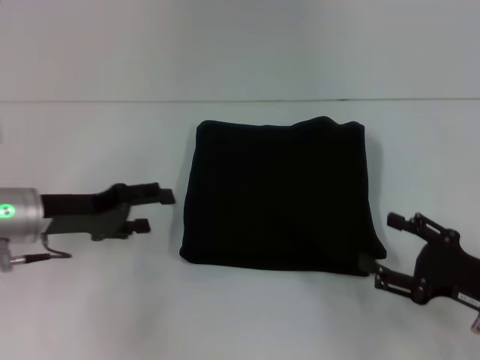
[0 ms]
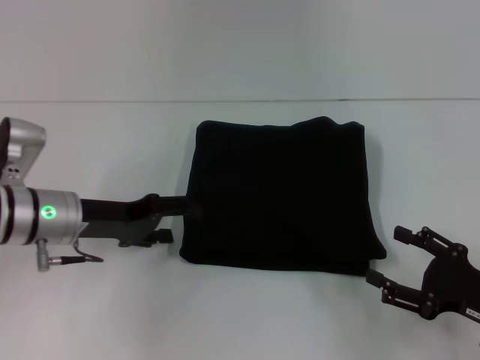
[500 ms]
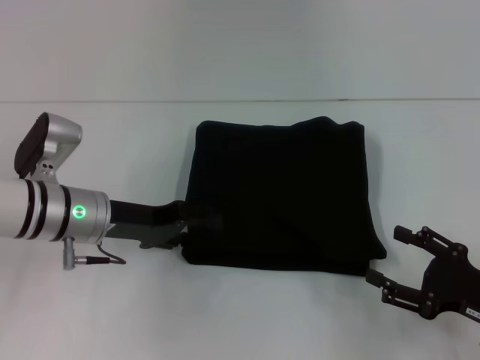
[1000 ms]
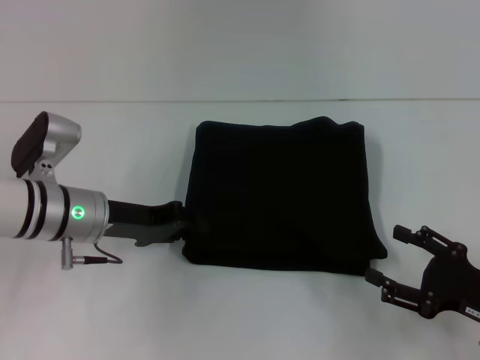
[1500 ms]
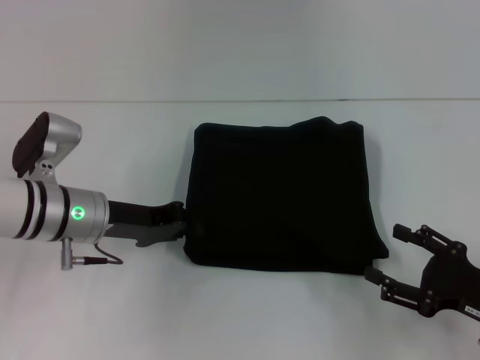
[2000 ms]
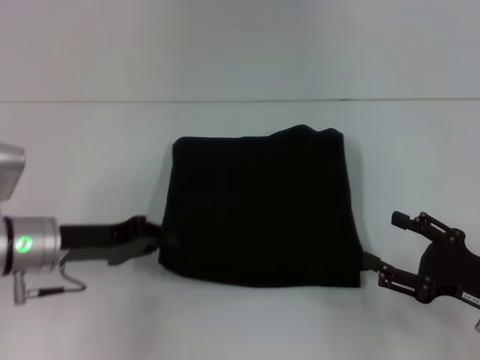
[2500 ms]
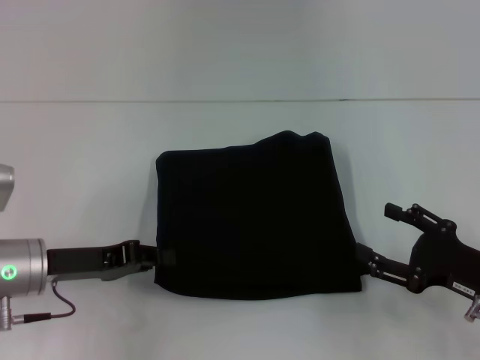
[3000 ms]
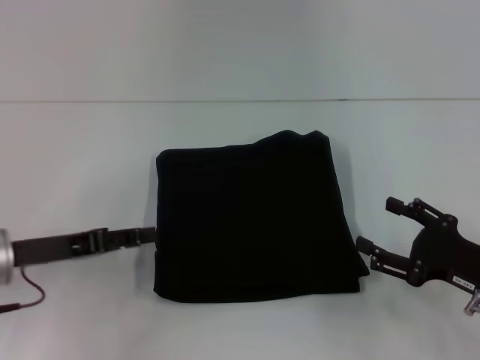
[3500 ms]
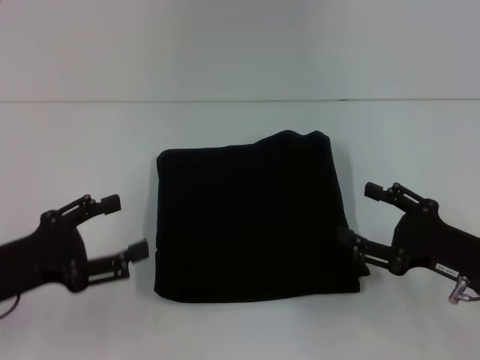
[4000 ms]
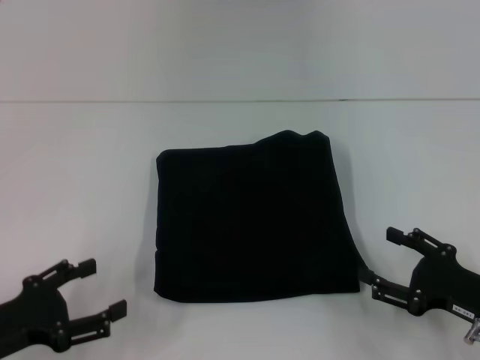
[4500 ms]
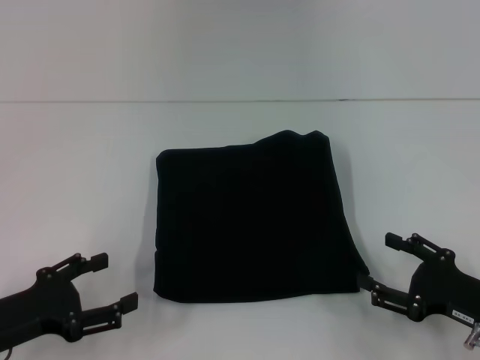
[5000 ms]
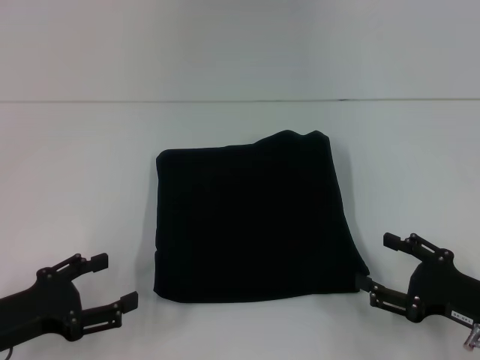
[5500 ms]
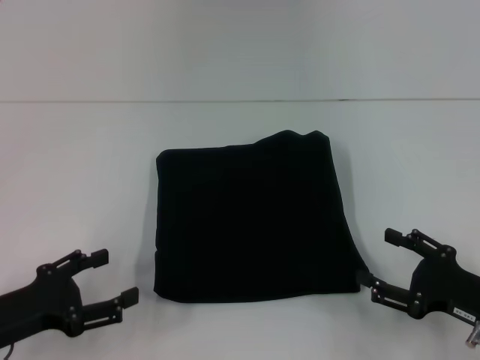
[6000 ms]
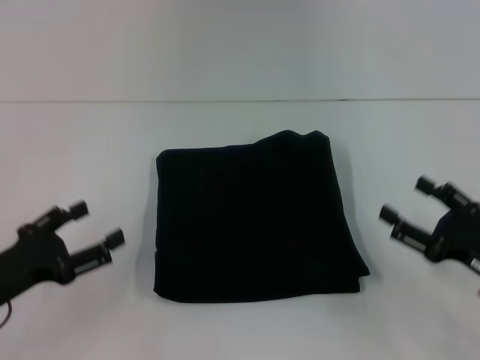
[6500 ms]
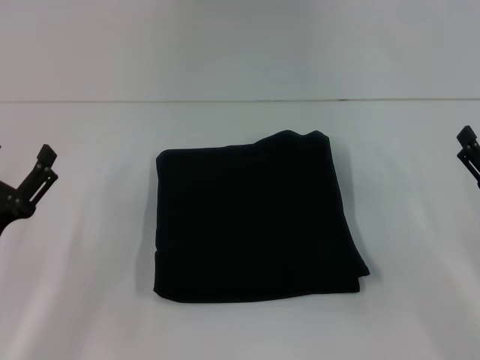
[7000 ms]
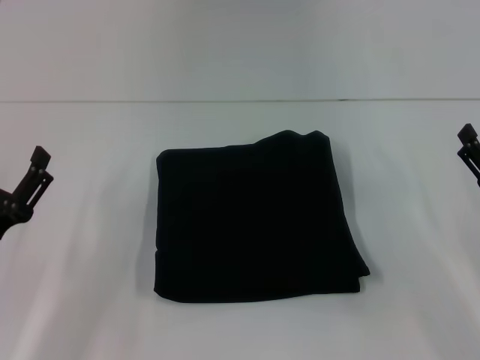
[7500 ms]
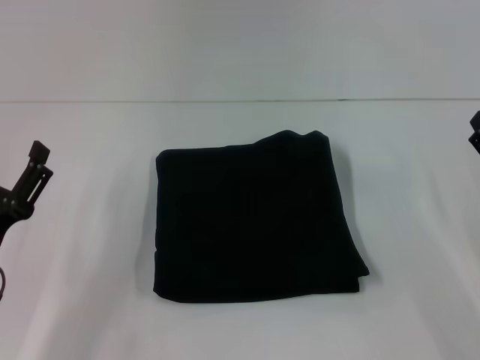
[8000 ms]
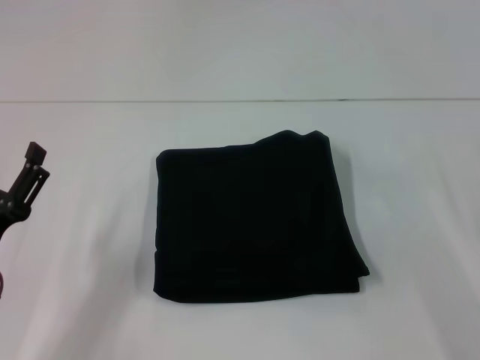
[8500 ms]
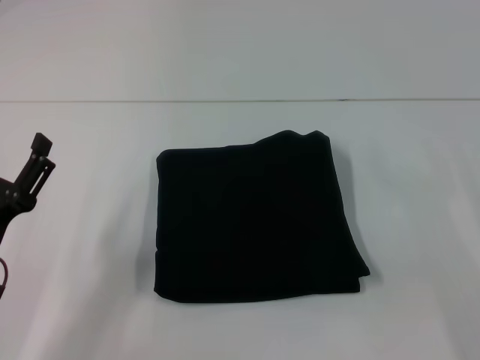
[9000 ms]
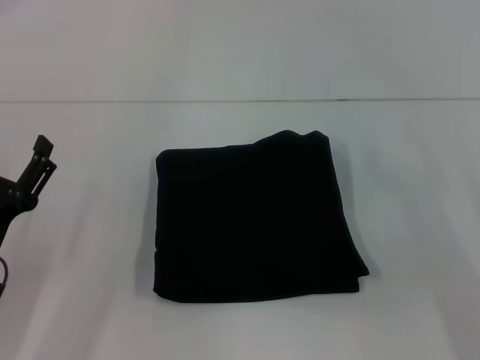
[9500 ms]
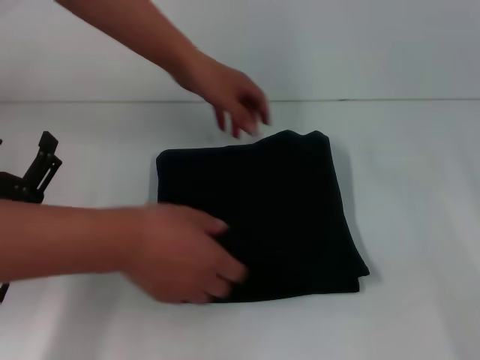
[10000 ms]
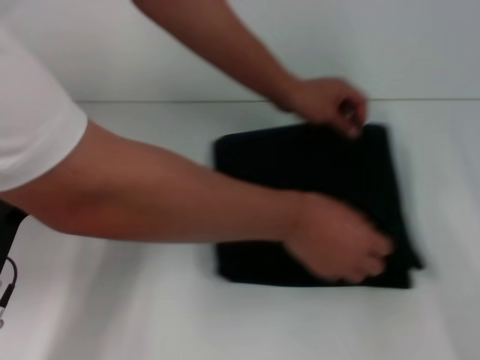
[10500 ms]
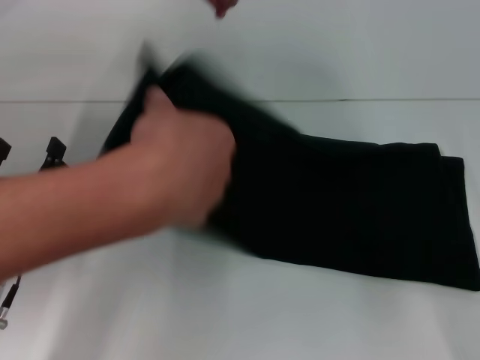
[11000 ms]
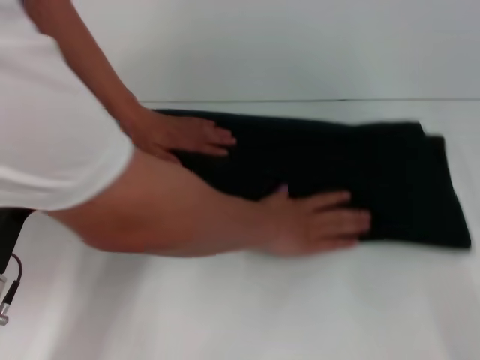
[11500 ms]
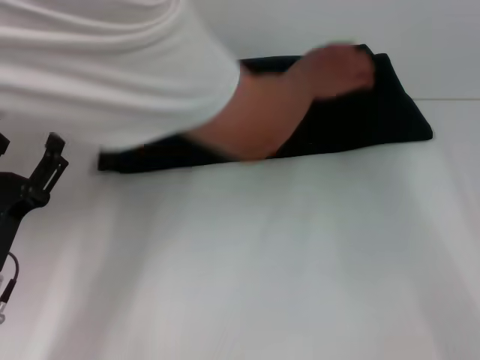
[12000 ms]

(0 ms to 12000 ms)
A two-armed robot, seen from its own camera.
0 ms - 2000 ms: The left gripper travels to the right by some 5 cm, and closes its fingers.
2000 ms - 4000 ms: The left gripper moves backward and to the left, approximately 15 cm, and opens.
4000 ms - 6000 ms: The grippers stay close to where they were, moving slightly.
6000 ms - 8000 ms: The right gripper changes place by roughly 5 cm.

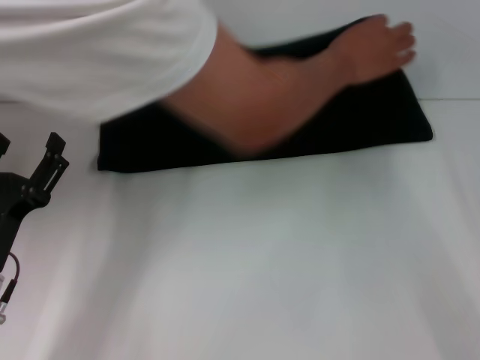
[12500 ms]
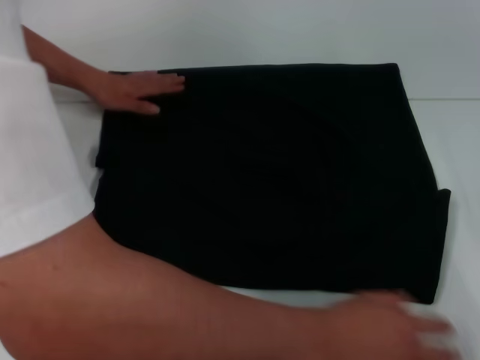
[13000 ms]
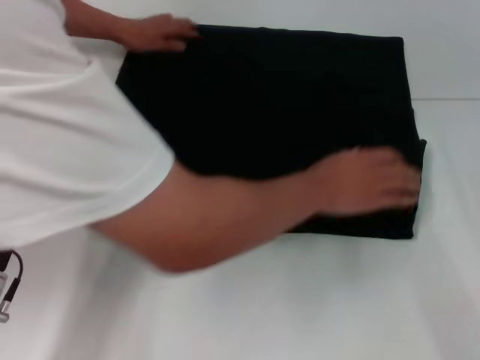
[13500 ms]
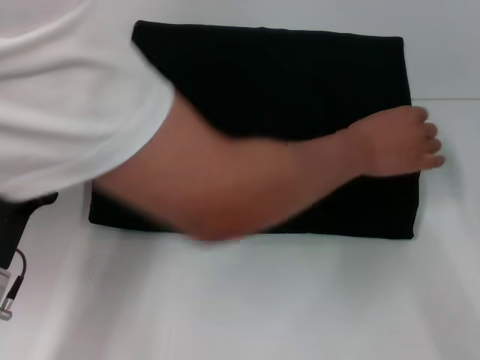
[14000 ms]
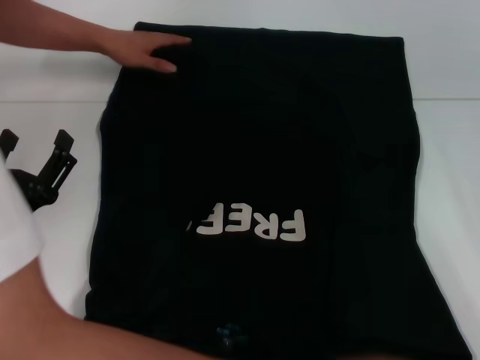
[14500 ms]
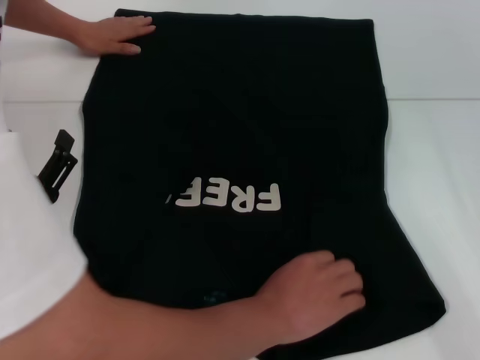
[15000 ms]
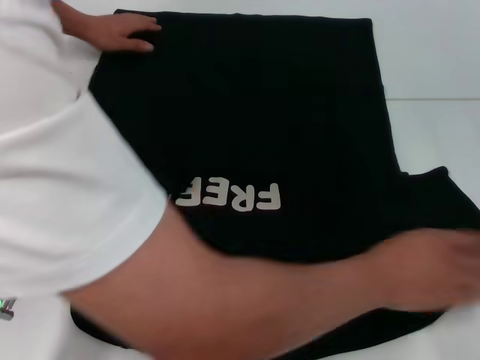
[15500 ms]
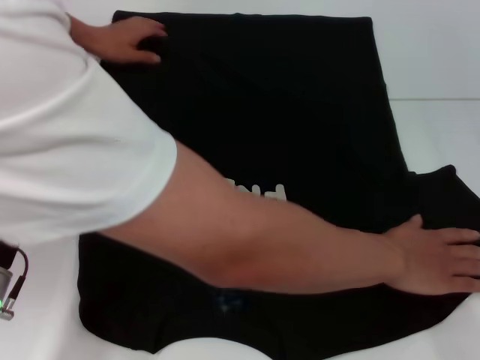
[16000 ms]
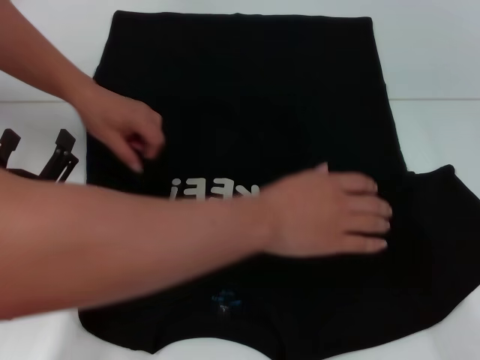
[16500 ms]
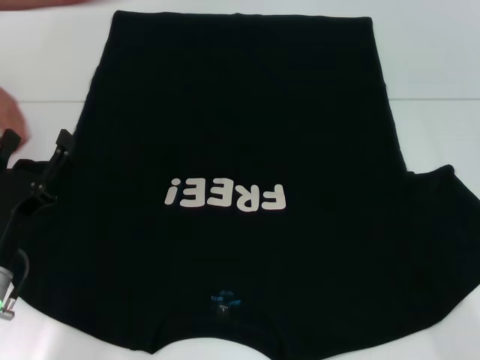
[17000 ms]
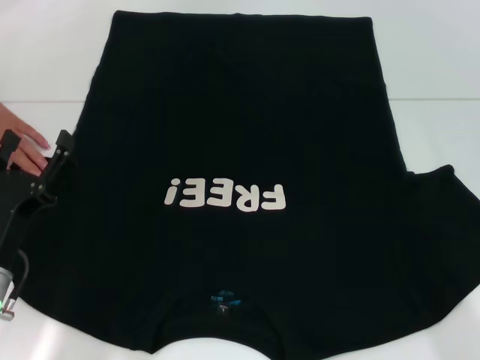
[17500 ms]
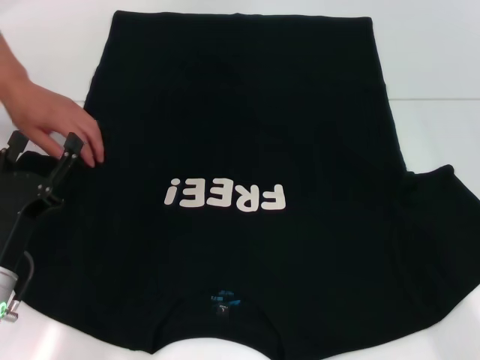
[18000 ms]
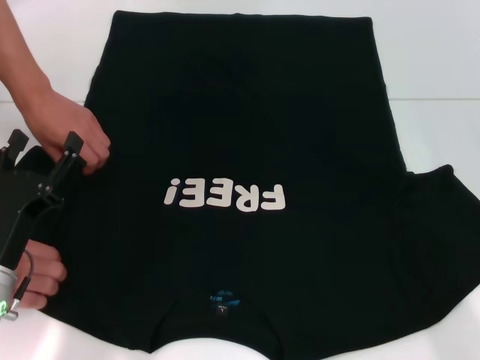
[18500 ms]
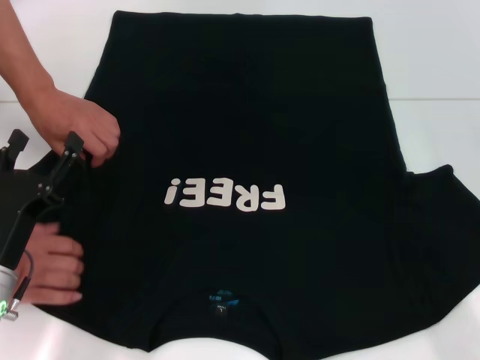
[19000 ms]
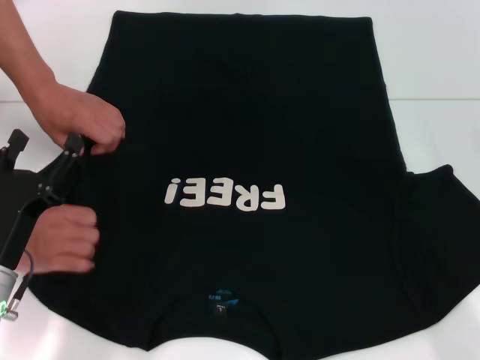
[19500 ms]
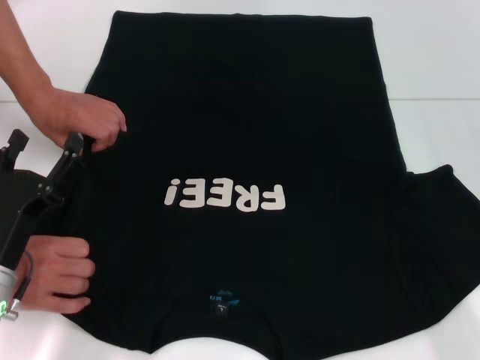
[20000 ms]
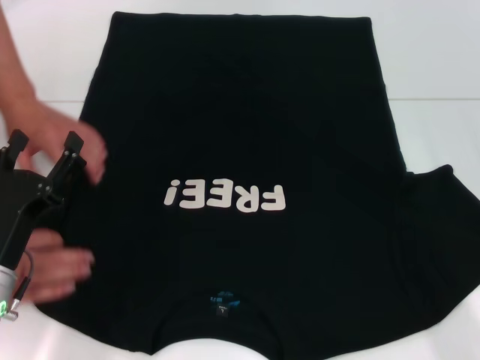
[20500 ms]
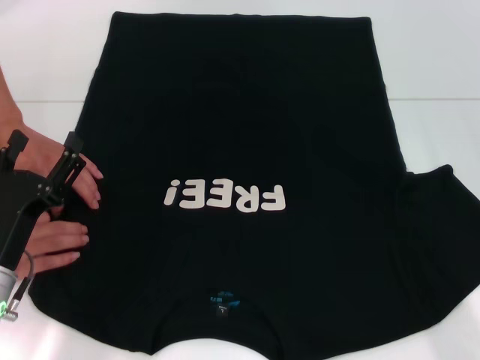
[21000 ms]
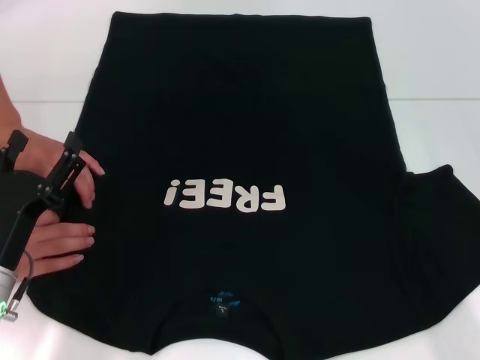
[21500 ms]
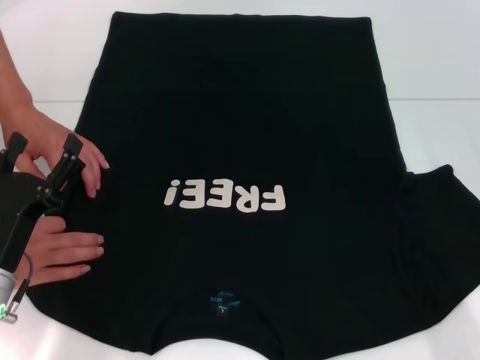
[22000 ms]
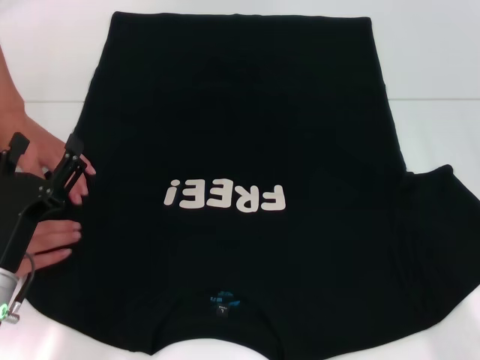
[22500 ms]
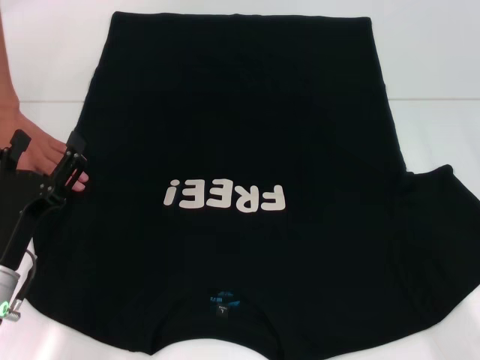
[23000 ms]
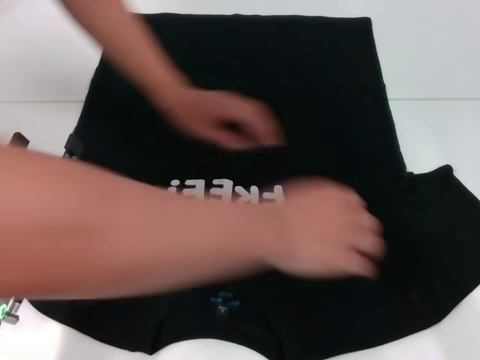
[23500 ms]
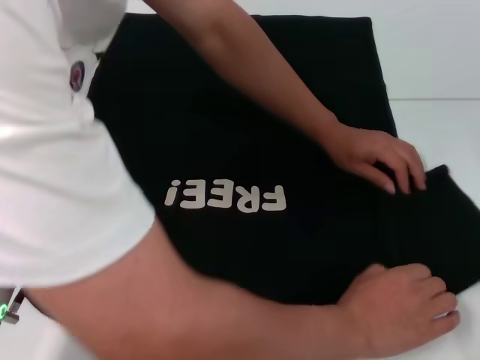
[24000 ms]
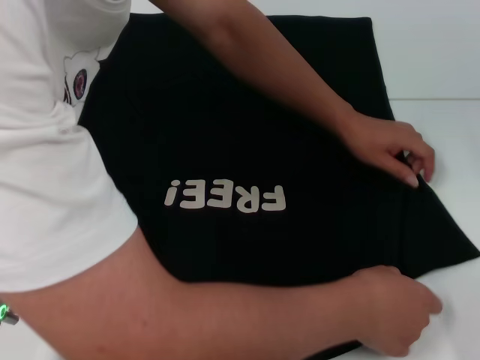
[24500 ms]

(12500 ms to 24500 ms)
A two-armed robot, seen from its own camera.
18500 ms - 22500 ms: Neither gripper changes place.

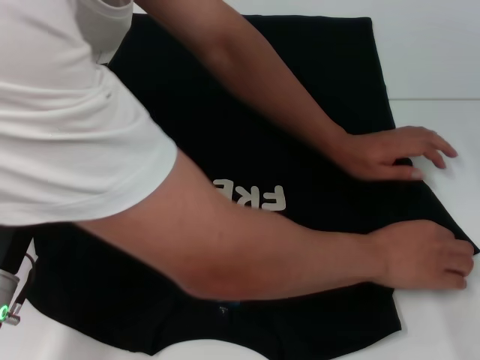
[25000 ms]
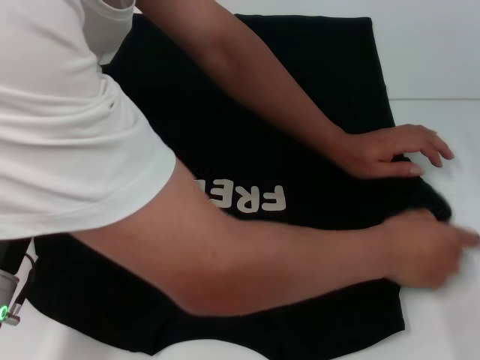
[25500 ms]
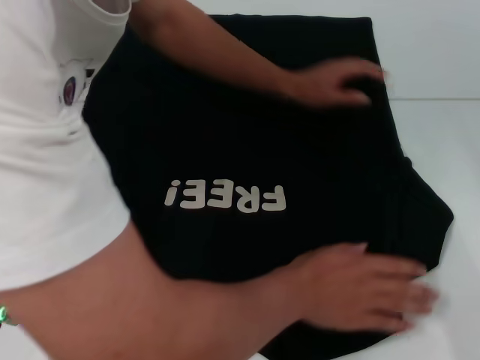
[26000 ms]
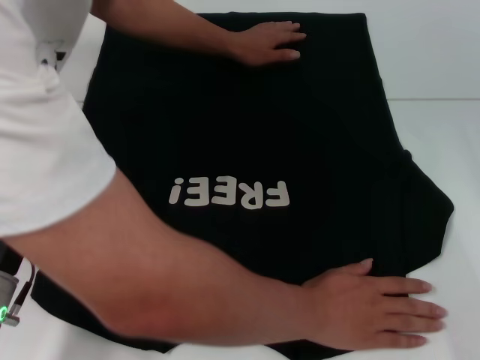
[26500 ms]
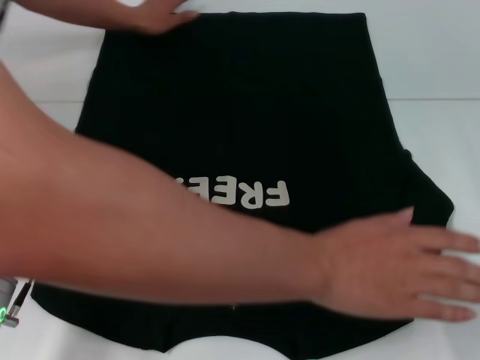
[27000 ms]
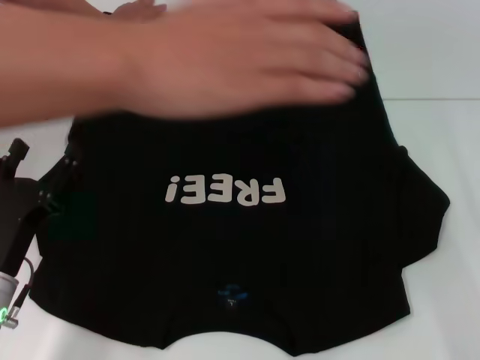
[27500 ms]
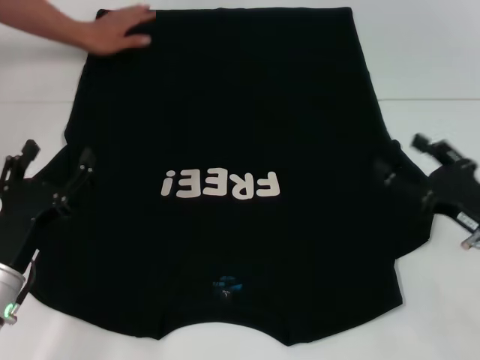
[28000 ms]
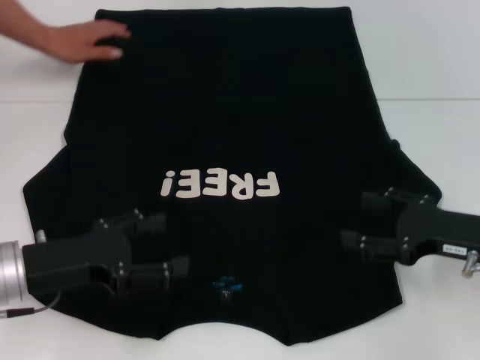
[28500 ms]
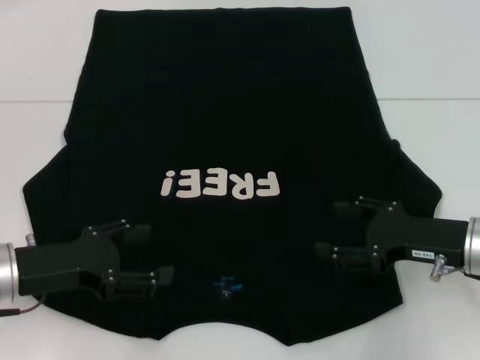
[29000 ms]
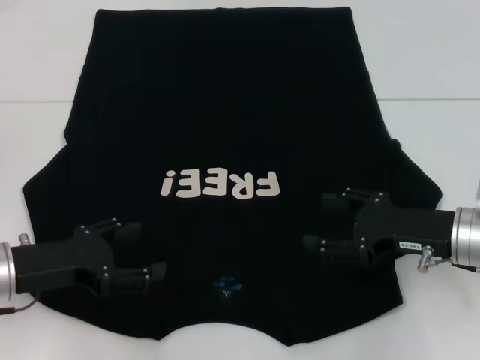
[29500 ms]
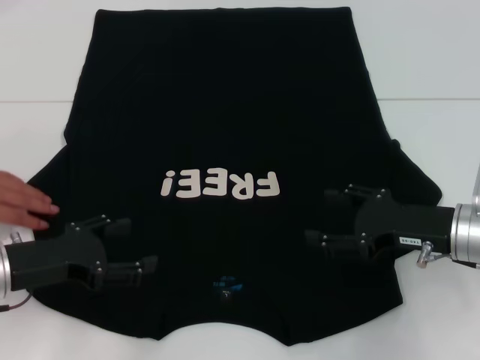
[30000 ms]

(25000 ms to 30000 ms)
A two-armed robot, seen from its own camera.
27500 ms - 30000 ms: The left gripper changes place by some 5 cm. Meanwhile the right gripper travels to the left by some 10 cm.
